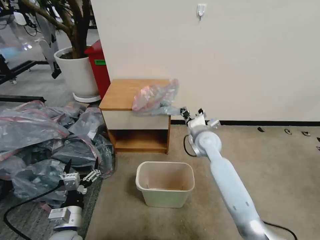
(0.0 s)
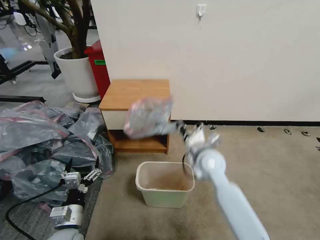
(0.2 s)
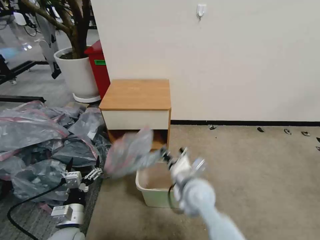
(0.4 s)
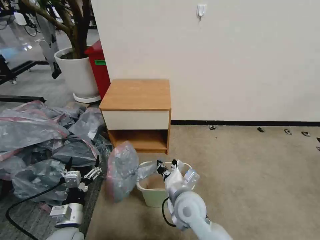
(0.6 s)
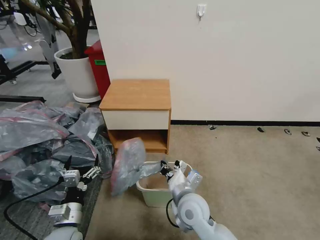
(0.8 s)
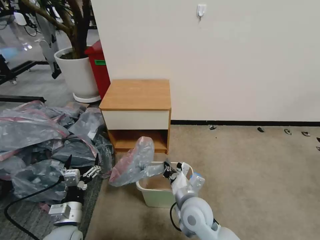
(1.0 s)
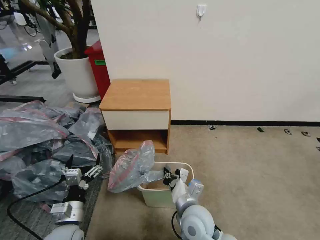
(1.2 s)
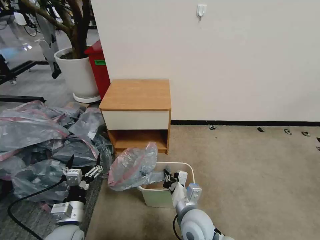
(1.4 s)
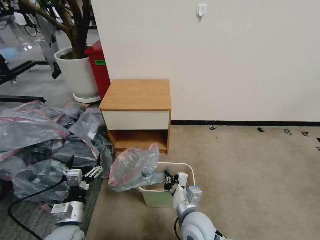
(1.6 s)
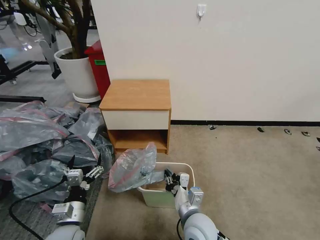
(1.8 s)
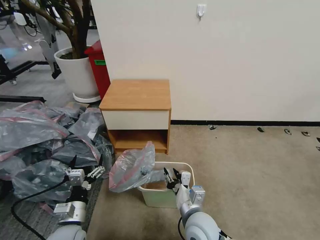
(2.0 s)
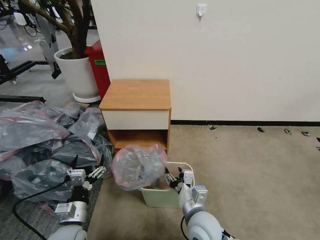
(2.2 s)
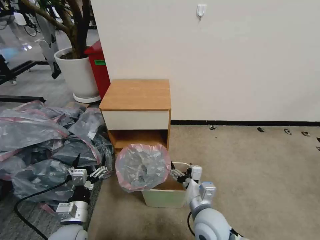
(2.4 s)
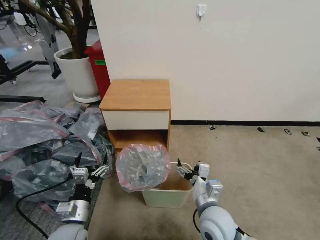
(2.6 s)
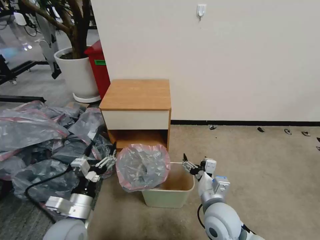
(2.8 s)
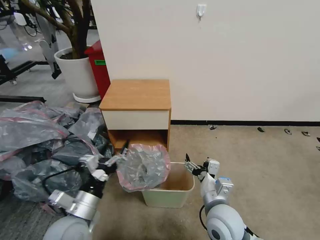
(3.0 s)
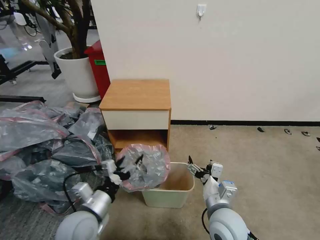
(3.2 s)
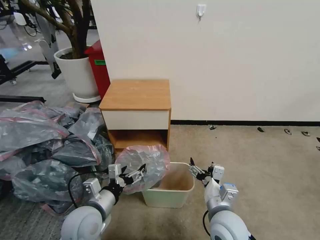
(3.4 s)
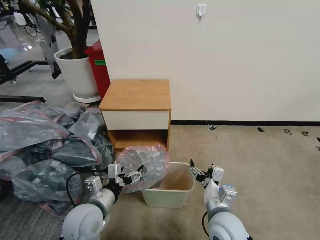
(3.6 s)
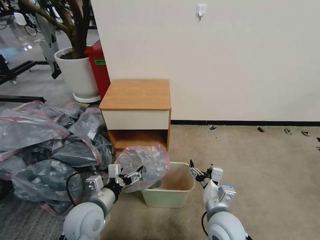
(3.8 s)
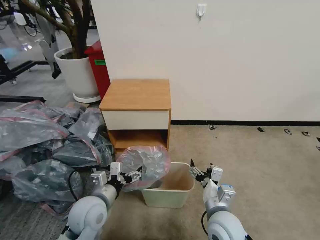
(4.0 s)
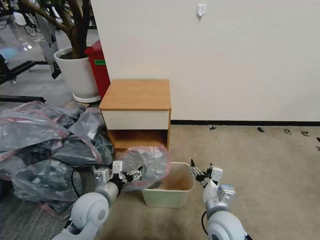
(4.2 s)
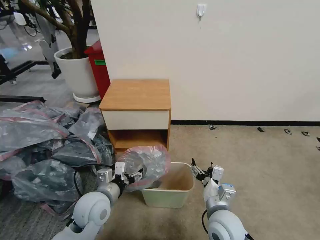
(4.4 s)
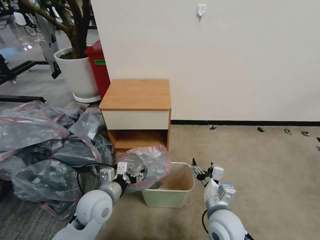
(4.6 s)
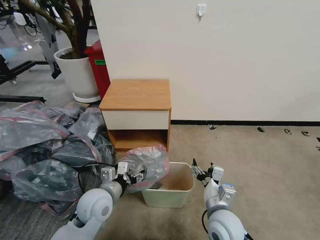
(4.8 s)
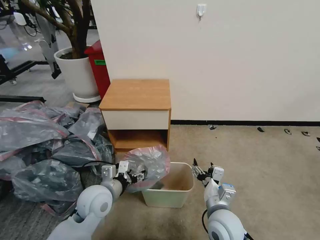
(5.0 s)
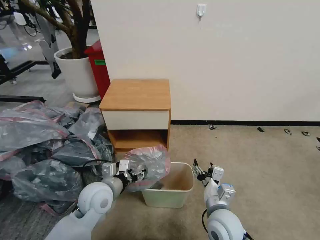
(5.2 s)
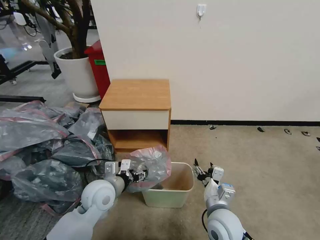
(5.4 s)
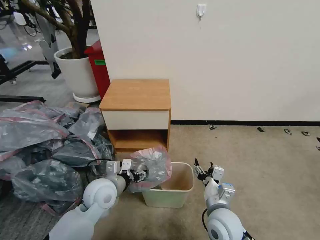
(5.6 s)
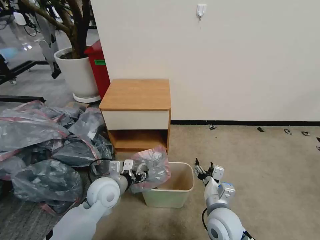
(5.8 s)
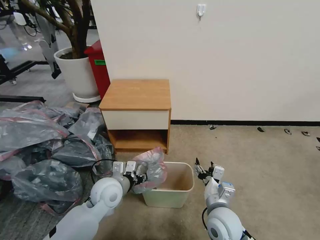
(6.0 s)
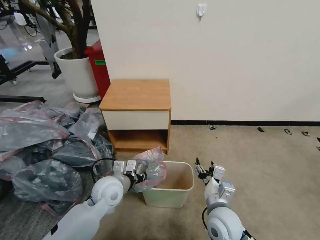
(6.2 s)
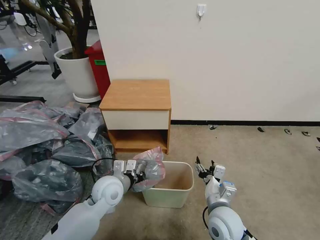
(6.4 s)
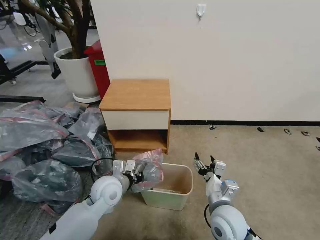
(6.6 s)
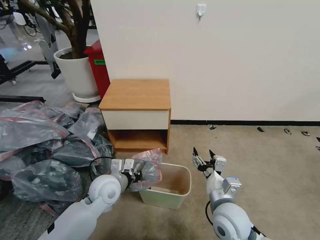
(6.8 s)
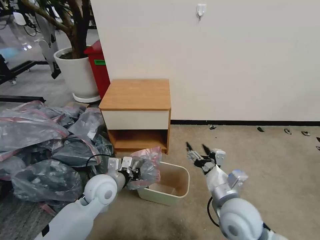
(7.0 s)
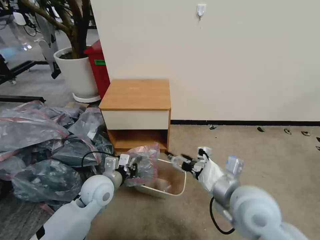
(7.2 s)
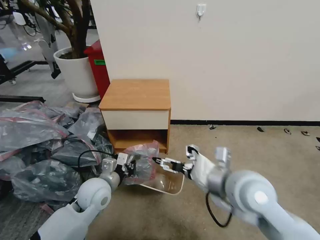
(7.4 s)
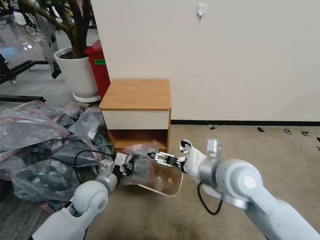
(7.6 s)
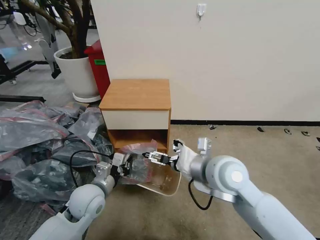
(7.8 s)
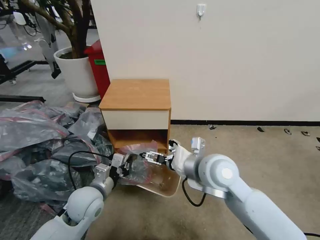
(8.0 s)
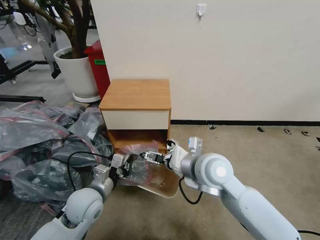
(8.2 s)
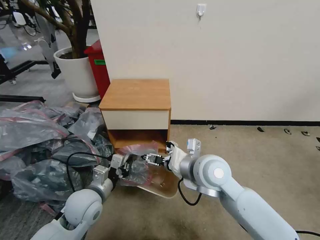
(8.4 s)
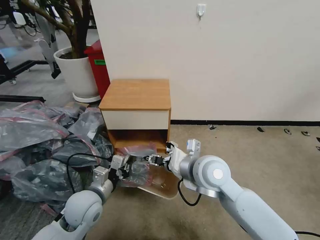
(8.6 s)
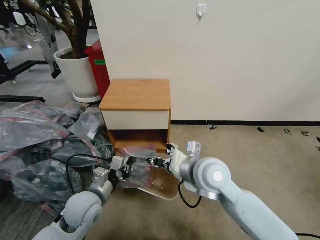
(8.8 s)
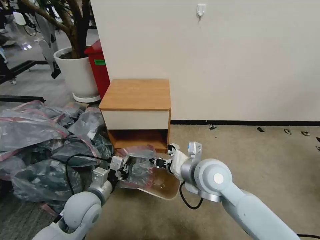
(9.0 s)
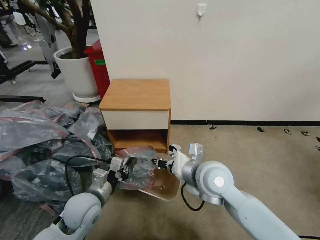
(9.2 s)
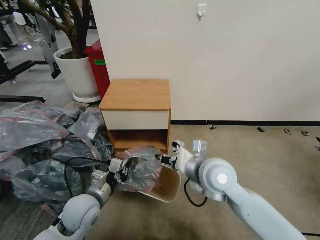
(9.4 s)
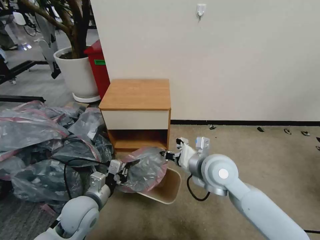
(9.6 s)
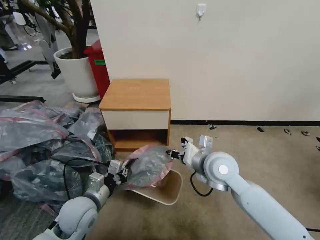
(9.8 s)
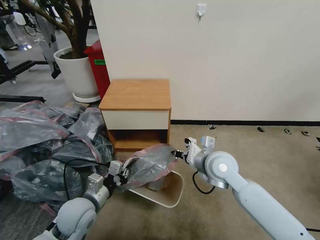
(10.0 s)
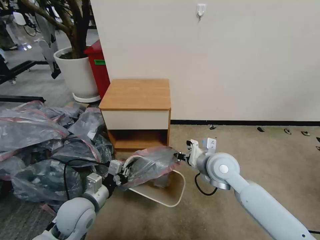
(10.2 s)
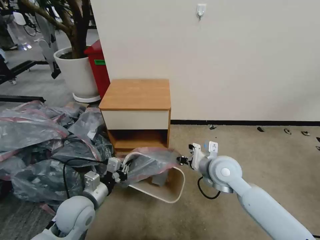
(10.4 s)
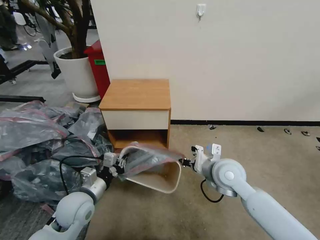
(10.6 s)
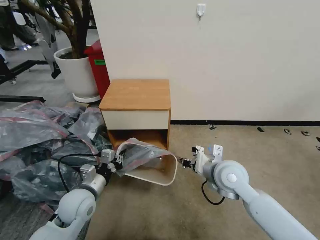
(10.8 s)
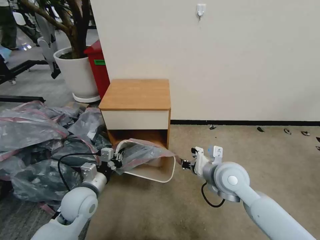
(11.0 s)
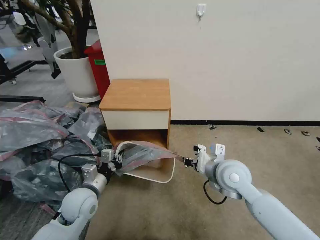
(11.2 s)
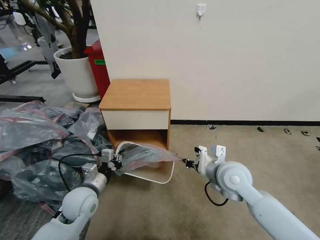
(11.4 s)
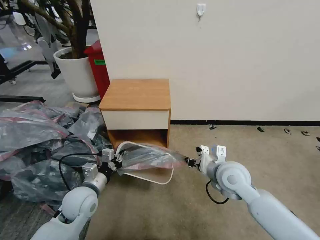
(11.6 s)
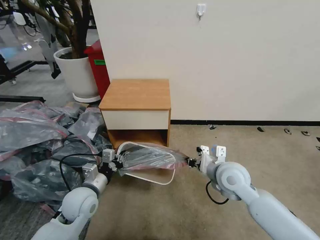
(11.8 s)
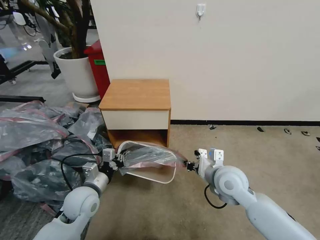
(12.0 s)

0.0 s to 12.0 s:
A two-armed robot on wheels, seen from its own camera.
Task of the whole recording: Pick up the garbage bag from the table and place it over the trash can.
0.0 to 1.6 s: The right gripper goes some 25 cm backward.
1.6 to 3.0 s: The right gripper is displaced to the right and upward by roughly 10 cm, and opens its fingers. The left gripper moves upward, approximately 10 cm.
3.0 to 4.4 s: The left gripper moves forward, approximately 5 cm.
4.4 to 6.0 s: The left gripper shifts by some 5 cm, and closes its fingers.
6.0 to 7.6 s: The left gripper closes up. Meanwhile the right gripper heads upward, covering approximately 20 cm.
7.6 to 9.0 s: The right gripper shifts by roughly 5 cm, and closes.
9.0 to 10.4 s: The right gripper is displaced to the right by roughly 5 cm.
10.4 to 12.0 s: There are only small adjustments of the grippers.

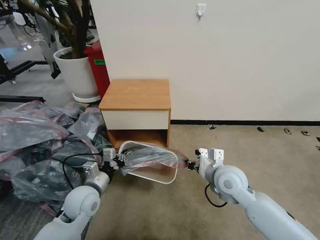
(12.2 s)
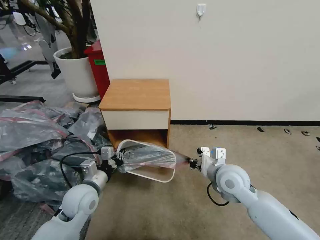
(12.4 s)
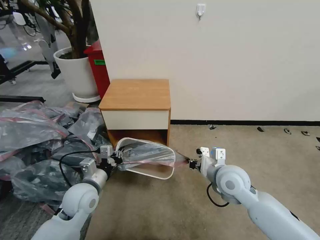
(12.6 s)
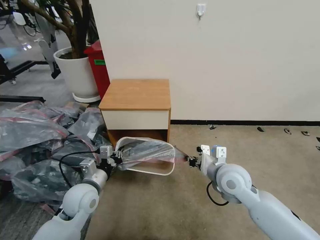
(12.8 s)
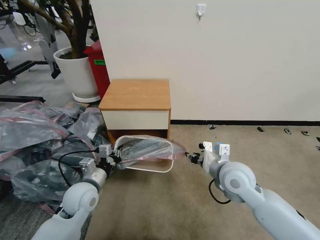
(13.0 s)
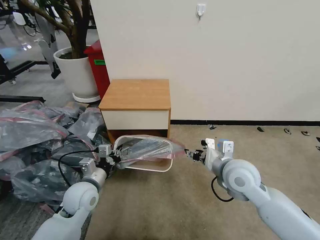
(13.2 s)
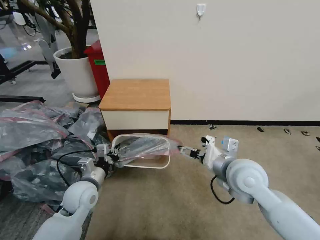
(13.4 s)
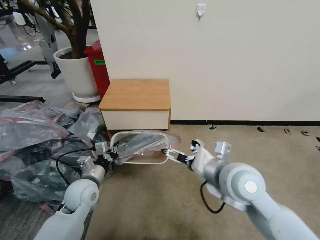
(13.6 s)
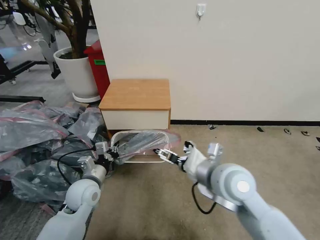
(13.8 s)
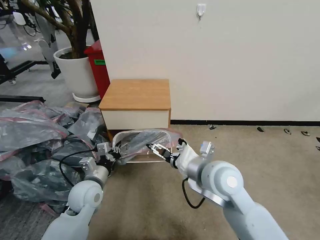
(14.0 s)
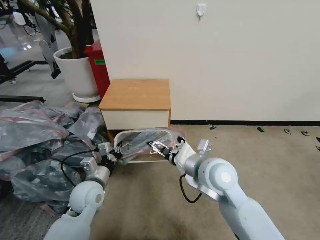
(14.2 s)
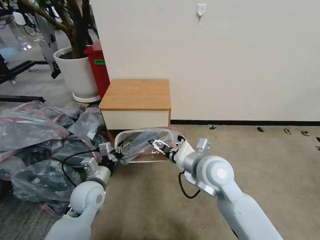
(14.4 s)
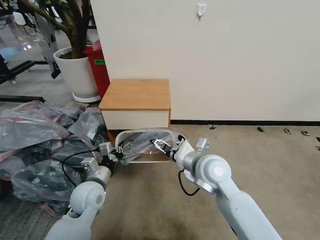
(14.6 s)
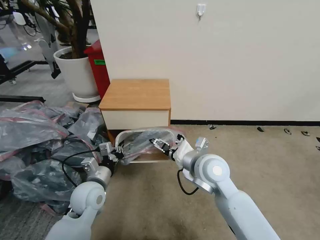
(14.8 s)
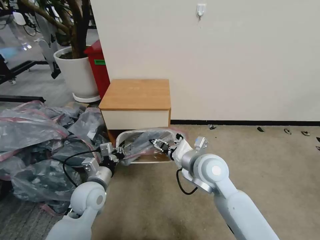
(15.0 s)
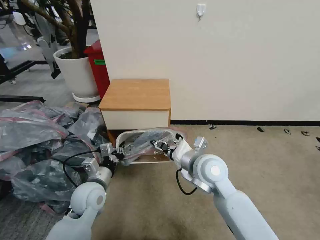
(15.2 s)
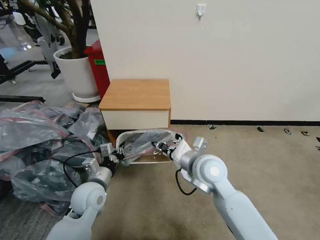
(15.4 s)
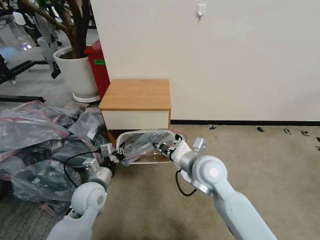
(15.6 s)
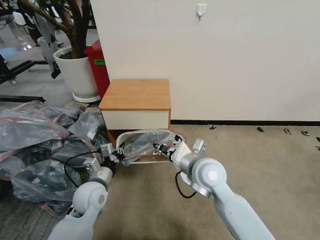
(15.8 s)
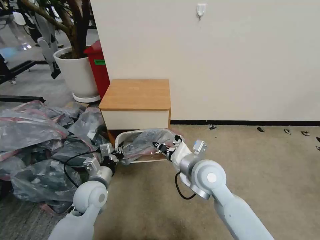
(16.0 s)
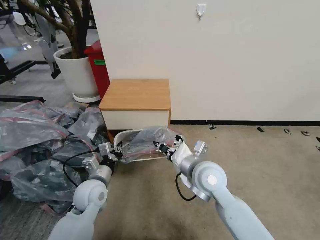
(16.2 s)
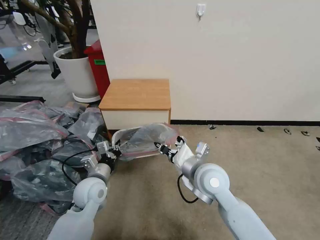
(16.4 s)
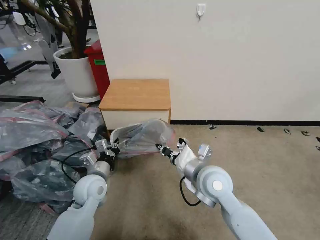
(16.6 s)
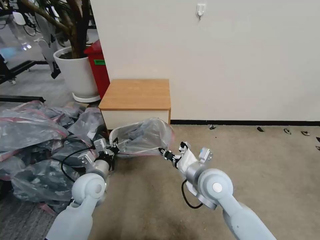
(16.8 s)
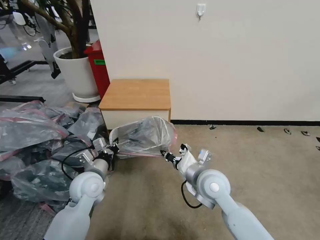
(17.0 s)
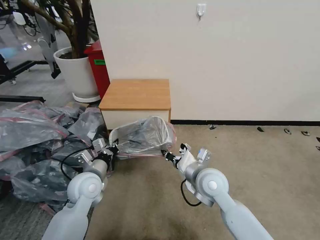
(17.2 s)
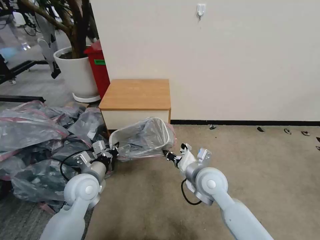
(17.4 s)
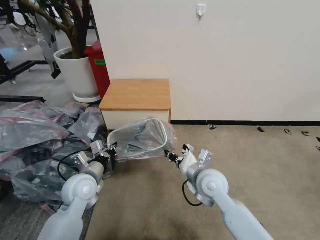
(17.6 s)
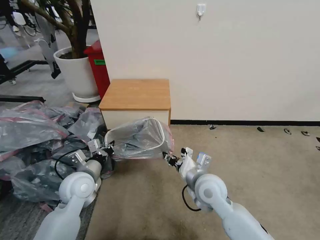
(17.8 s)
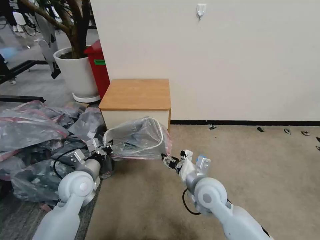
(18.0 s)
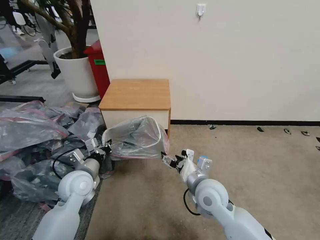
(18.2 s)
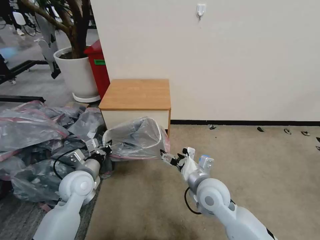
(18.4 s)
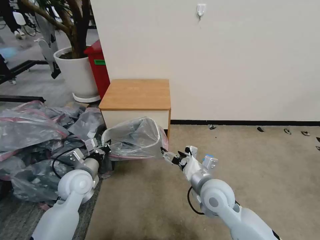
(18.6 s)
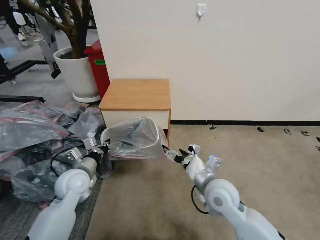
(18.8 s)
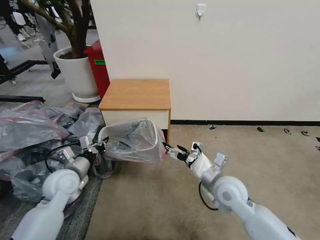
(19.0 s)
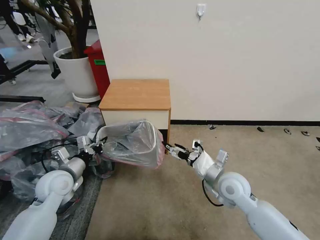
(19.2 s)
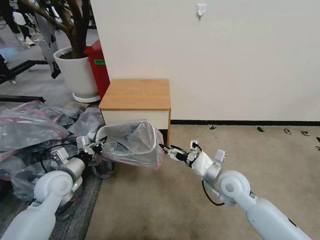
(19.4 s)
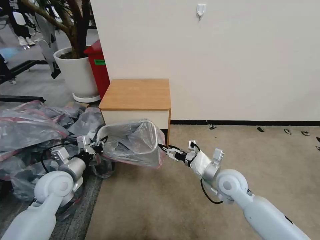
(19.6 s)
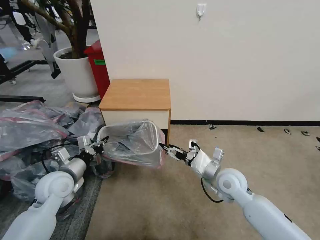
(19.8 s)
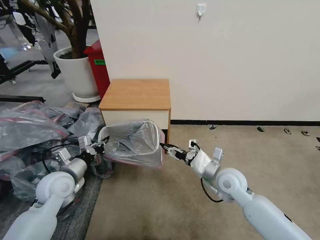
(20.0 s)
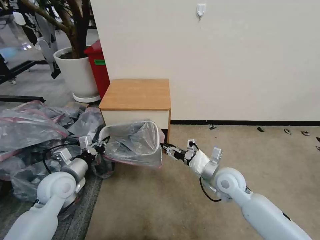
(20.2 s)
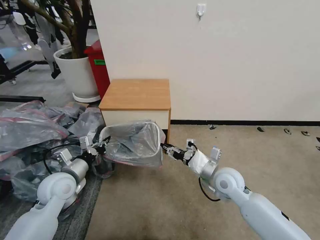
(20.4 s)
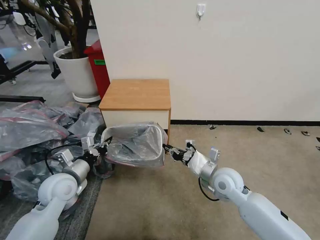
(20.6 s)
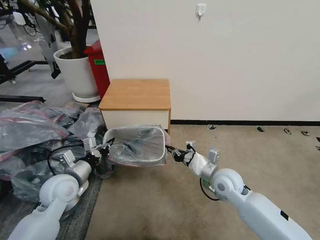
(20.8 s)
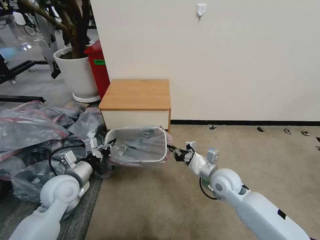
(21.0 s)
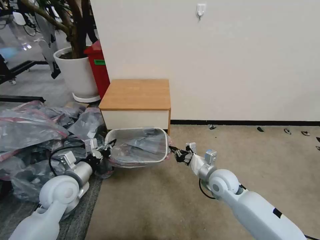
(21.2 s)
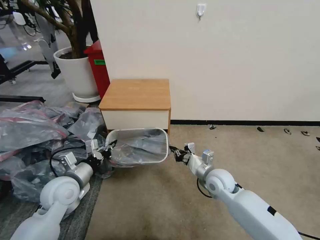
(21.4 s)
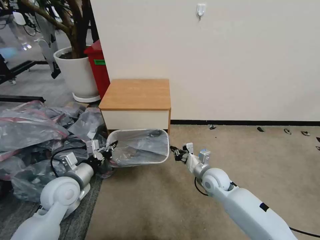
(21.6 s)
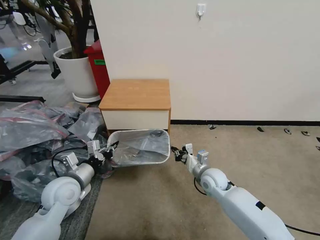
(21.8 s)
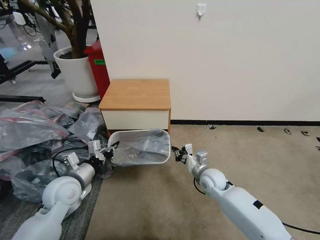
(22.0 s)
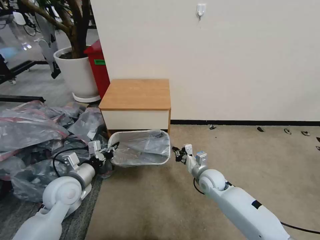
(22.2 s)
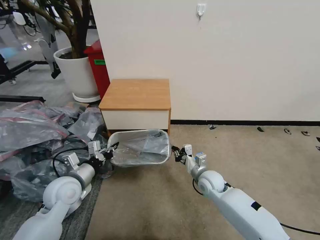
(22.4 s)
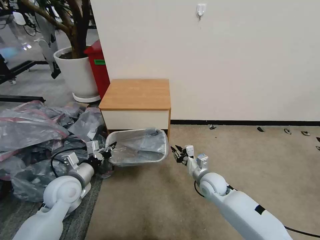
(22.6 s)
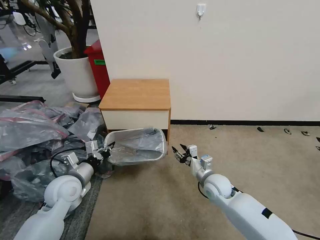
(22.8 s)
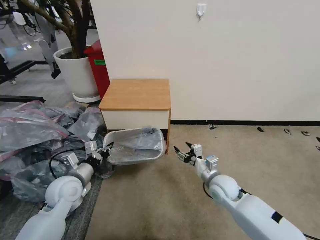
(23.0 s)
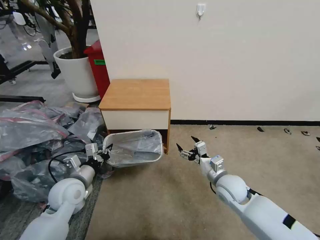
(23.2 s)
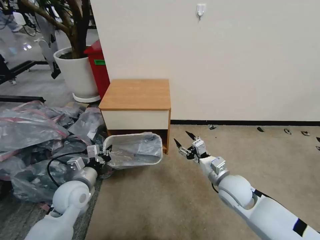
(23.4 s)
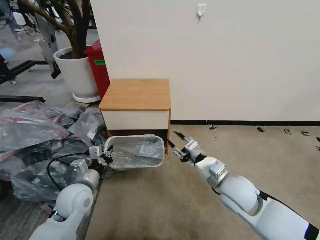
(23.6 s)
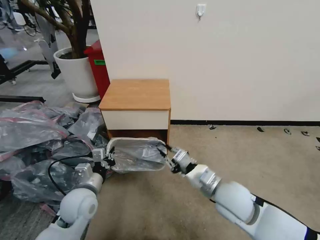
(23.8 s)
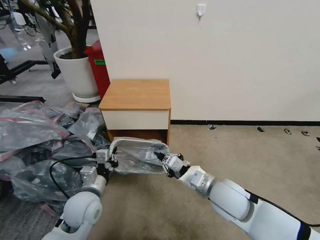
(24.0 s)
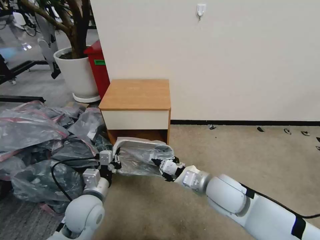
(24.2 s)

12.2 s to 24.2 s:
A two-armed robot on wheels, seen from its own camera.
Task of the whole recording: Pick up the garbage bag from the table and place it over the trash can.
12.2 to 13.8 s: The right gripper is displaced upward by approximately 10 cm, and opens its fingers.
13.8 to 15.2 s: The right gripper heads forward, covering approximately 5 cm, and closes its fingers.
15.2 to 16.6 s: The right gripper closes its fingers.
16.6 to 18.2 s: The right gripper is displaced downward by roughly 5 cm, and opens.
18.2 to 19.8 s: The left gripper shifts about 5 cm to the left. The right gripper heads to the right, covering some 10 cm.
19.8 to 21.2 s: The right gripper closes.
21.2 to 22.6 s: The right gripper is displaced downward by roughly 5 cm.
22.6 to 24.2 s: The left gripper goes about 10 cm to the right and backward. The right gripper is displaced upward and backward by approximately 15 cm, and opens and closes again.
